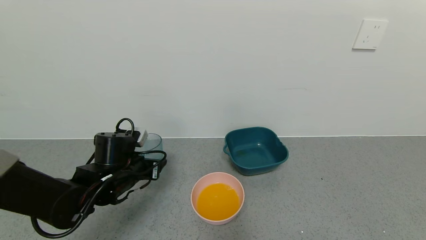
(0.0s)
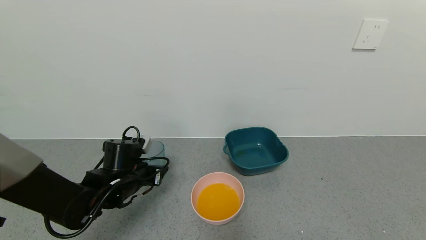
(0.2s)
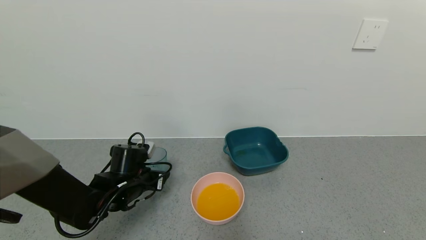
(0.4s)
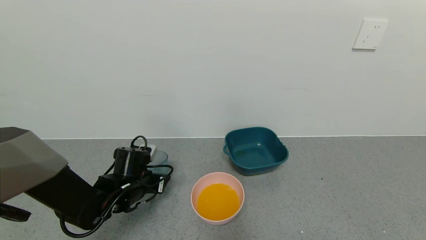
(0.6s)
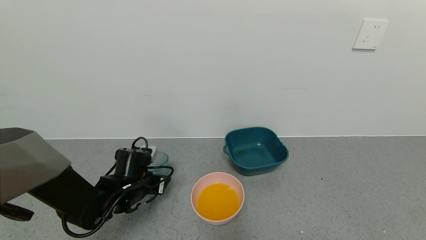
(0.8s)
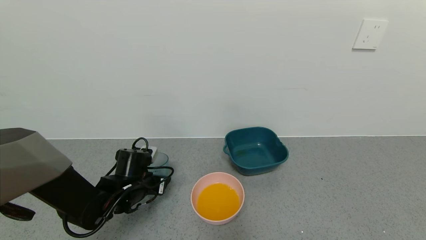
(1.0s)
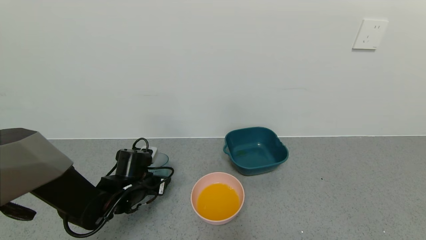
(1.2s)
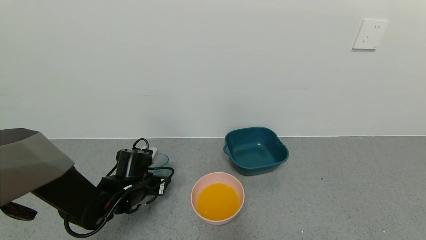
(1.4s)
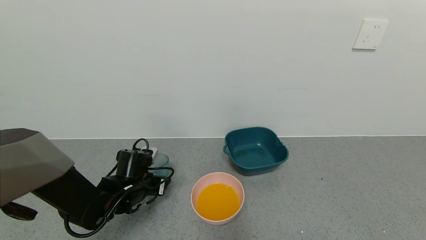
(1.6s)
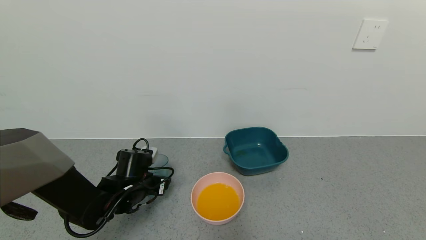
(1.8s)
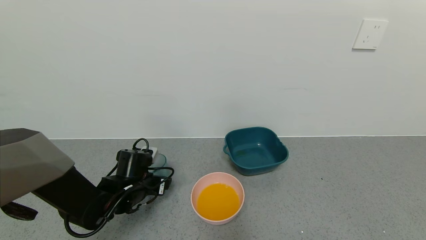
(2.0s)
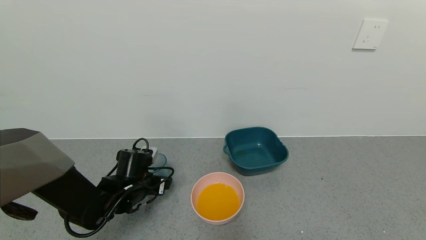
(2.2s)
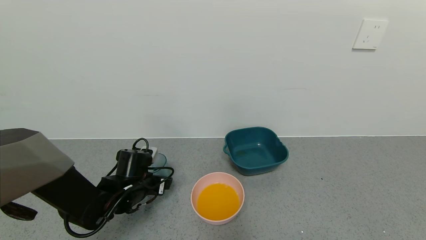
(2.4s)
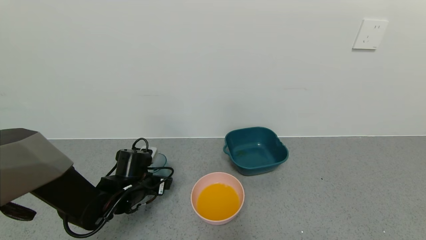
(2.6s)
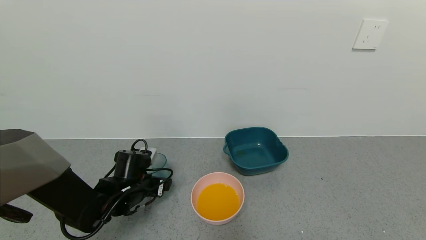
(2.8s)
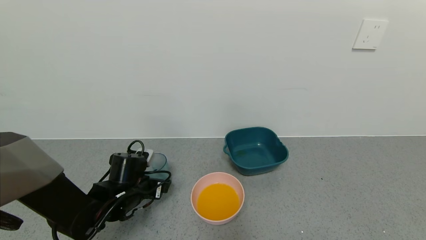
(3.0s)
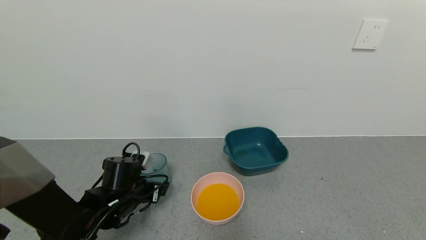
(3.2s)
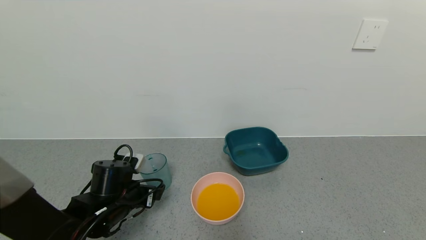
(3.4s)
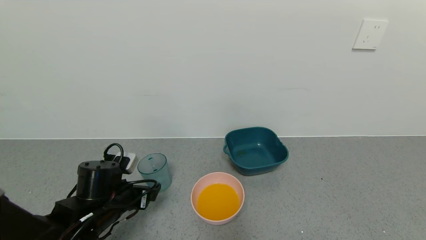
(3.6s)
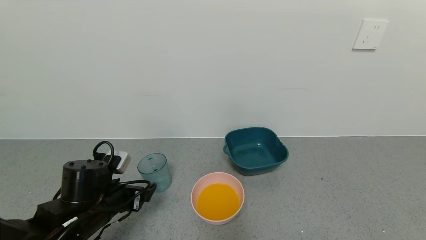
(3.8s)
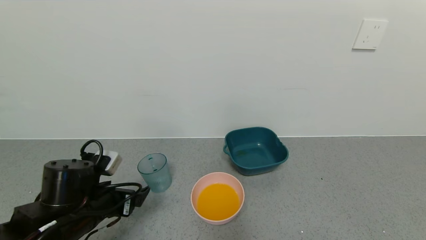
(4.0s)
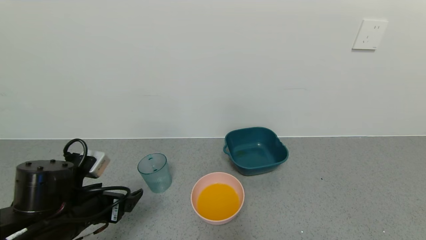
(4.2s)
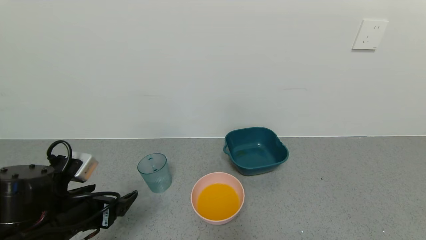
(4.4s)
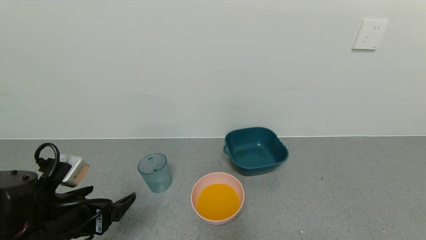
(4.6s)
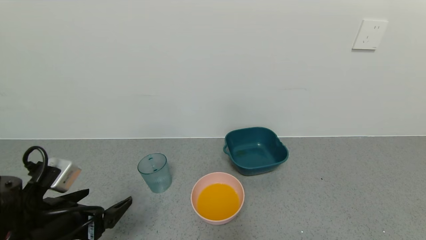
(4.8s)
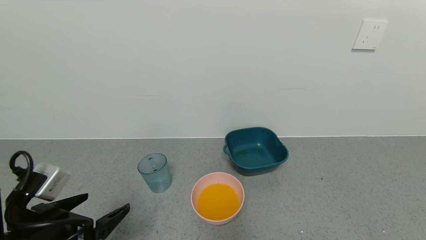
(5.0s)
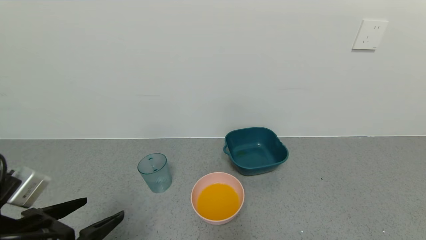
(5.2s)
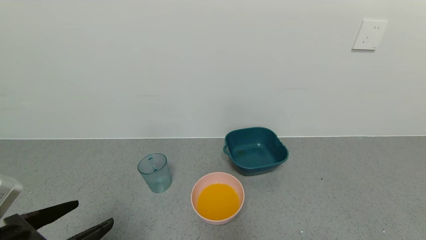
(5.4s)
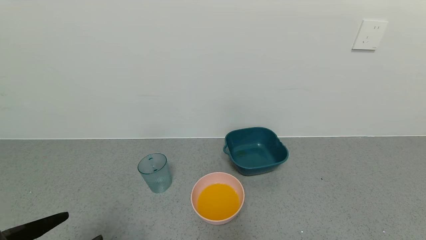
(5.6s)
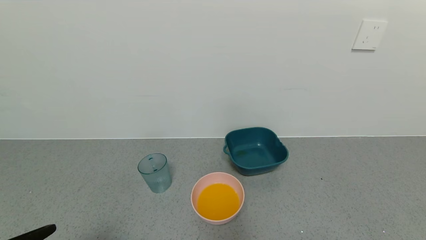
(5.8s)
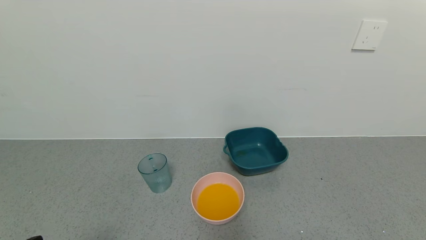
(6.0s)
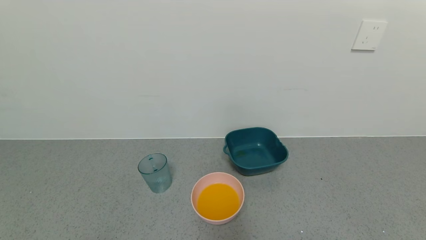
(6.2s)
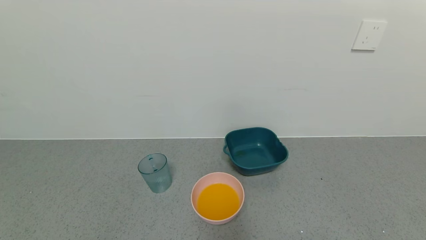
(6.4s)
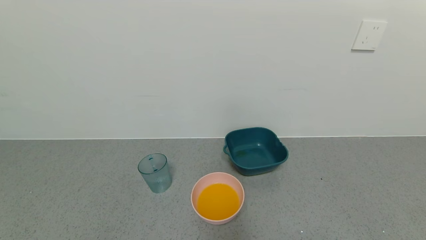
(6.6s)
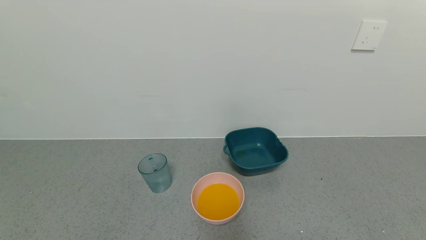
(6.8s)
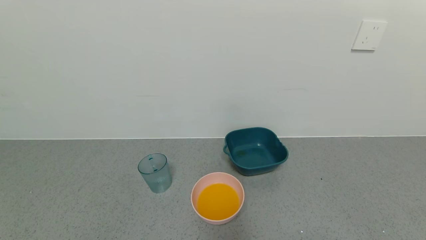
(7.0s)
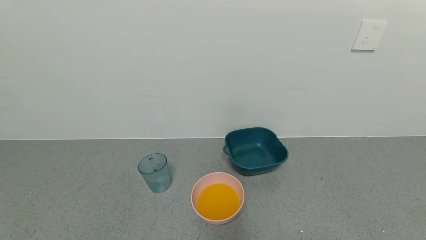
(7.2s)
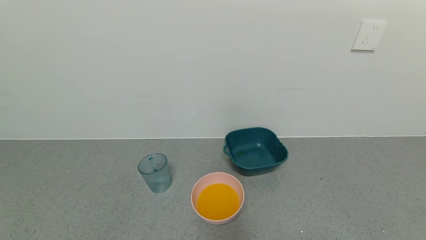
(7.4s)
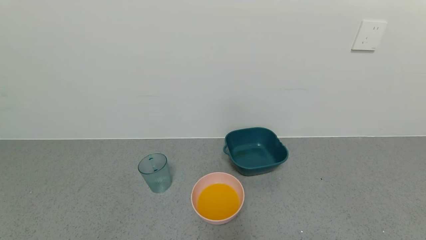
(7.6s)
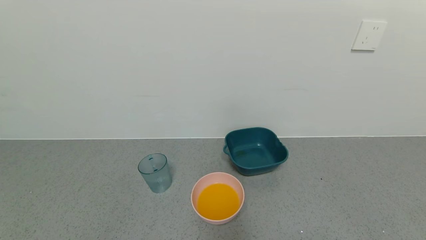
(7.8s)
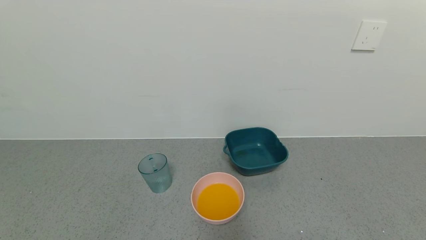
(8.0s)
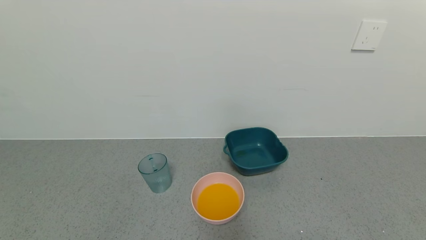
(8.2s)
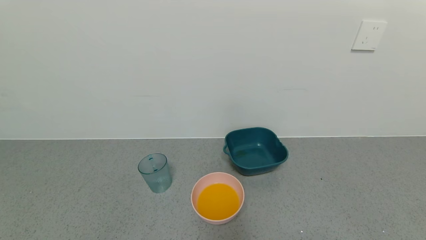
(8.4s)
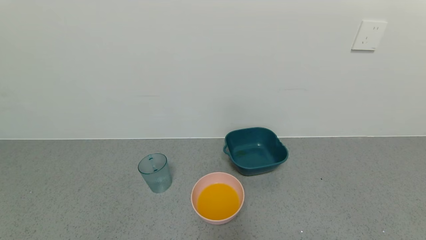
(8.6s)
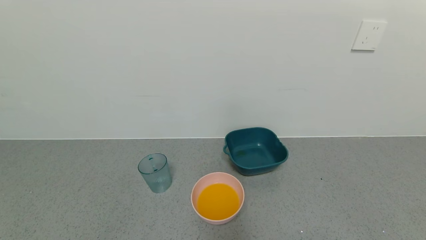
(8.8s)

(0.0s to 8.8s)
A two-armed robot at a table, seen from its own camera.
Task of the whole recording: use a gripper to pick up the cup and pour the liquid into a bowl or tray.
Step, 0.0s - 2.0s: Place blue cup with orange juice on the table with left gripper.
0.0s - 1.4s: The left gripper travels downward by approximately 5 cm.
1.4s - 3.0s: The left gripper opens up.
3.0s - 4.4s: The left gripper moves backward and upward, about 15 cm.
4.4s - 5.8s: The left gripper moves backward, some 15 cm.
